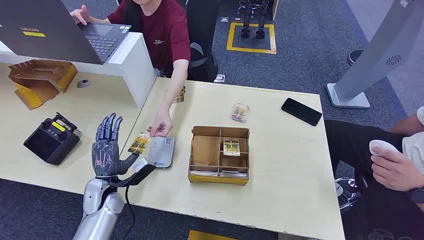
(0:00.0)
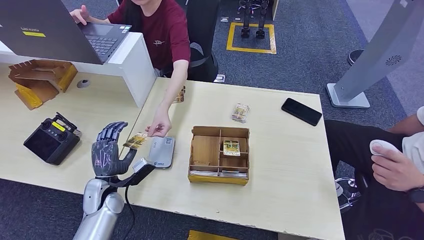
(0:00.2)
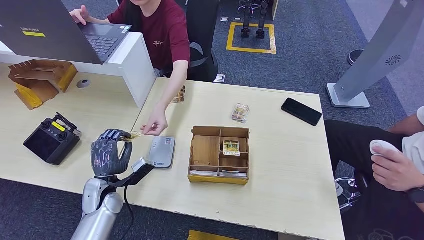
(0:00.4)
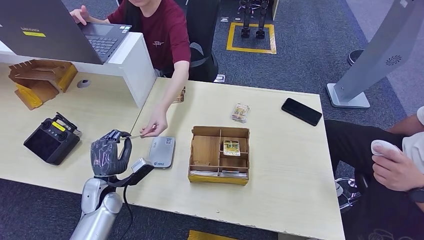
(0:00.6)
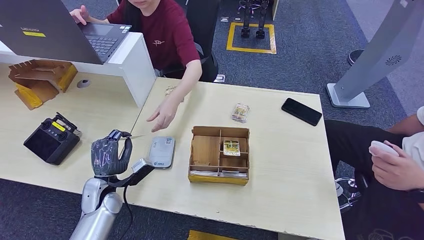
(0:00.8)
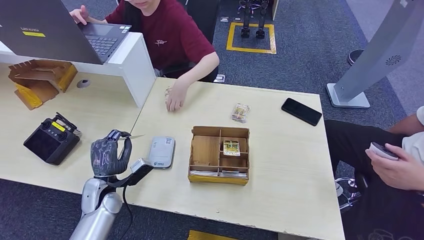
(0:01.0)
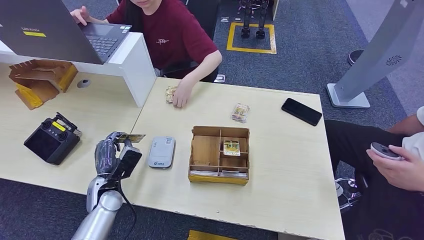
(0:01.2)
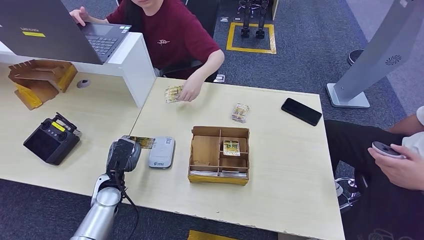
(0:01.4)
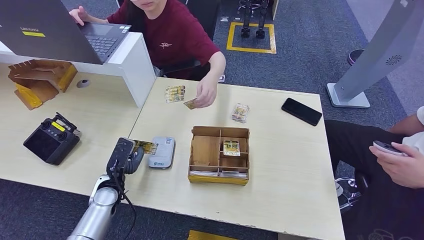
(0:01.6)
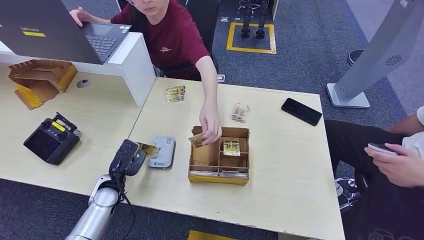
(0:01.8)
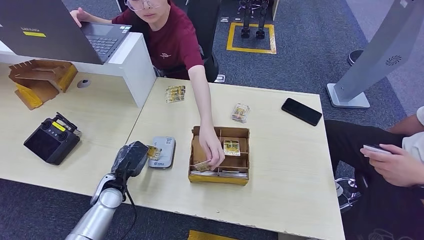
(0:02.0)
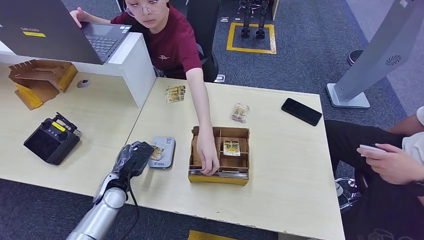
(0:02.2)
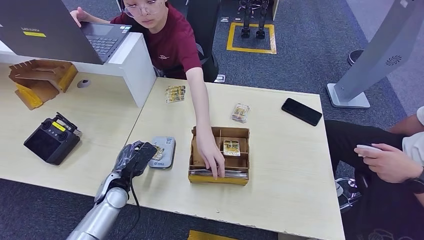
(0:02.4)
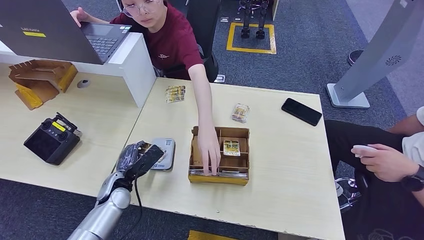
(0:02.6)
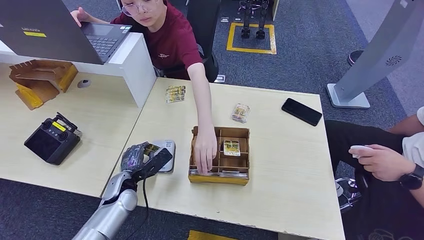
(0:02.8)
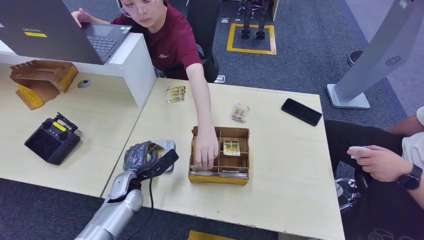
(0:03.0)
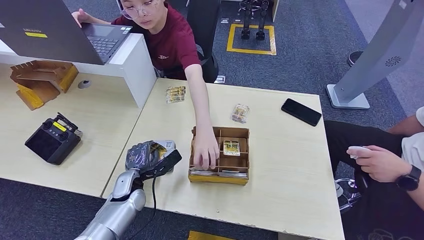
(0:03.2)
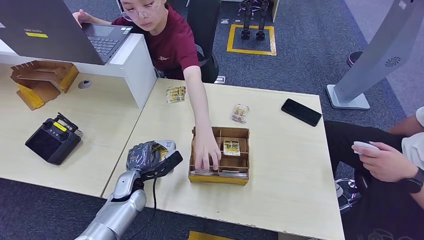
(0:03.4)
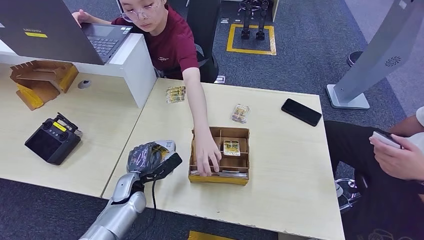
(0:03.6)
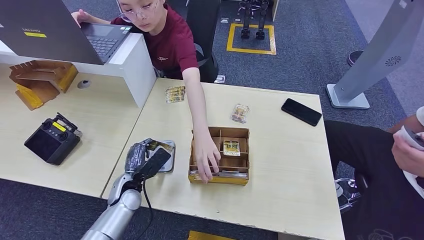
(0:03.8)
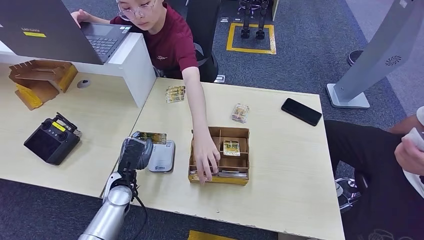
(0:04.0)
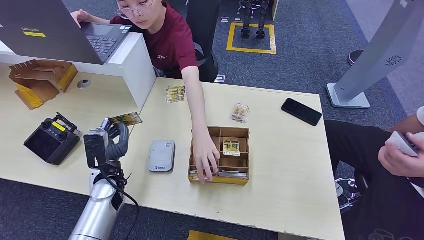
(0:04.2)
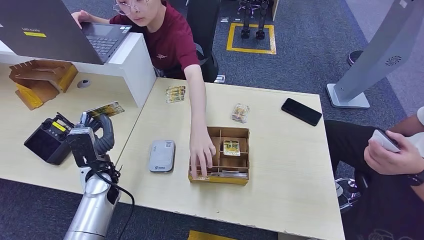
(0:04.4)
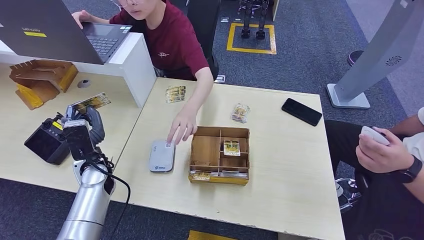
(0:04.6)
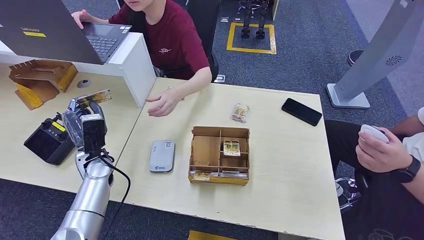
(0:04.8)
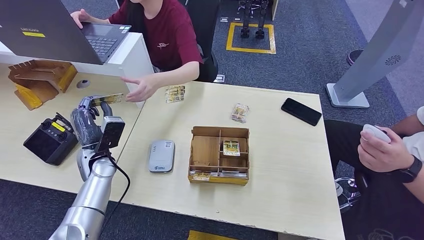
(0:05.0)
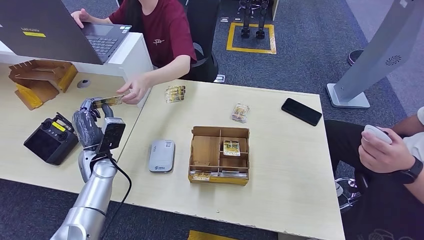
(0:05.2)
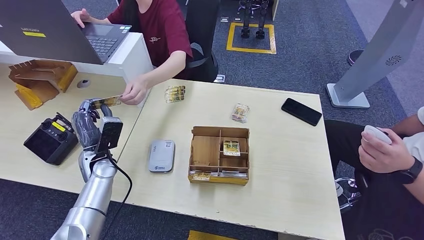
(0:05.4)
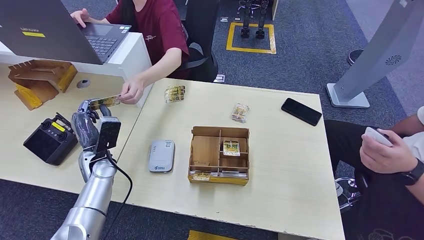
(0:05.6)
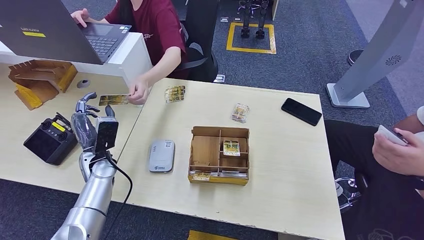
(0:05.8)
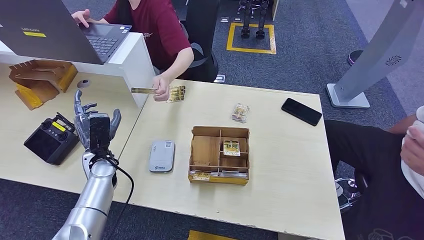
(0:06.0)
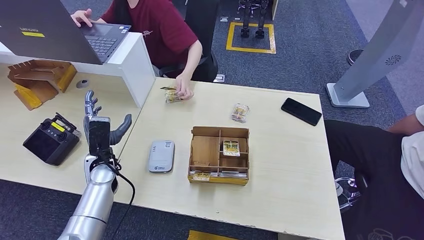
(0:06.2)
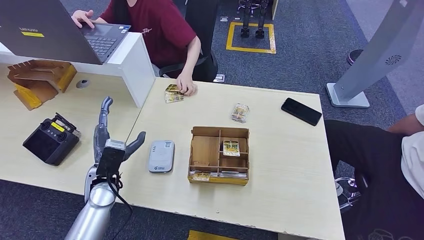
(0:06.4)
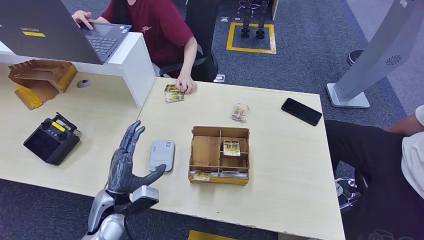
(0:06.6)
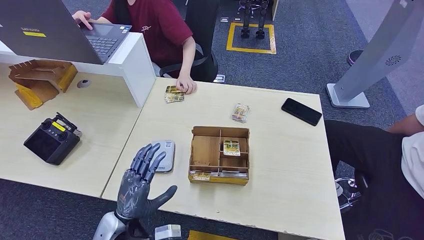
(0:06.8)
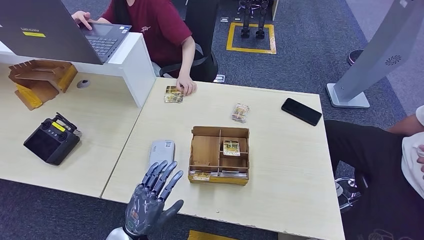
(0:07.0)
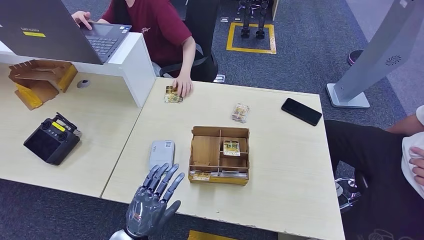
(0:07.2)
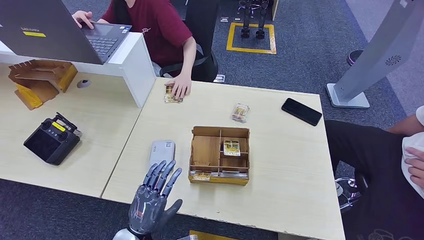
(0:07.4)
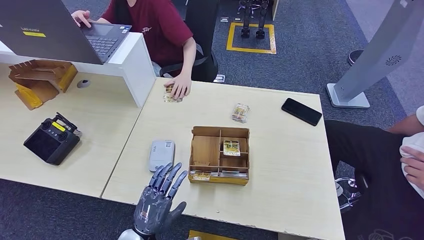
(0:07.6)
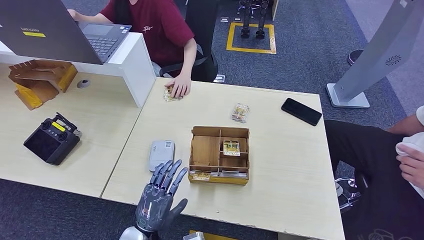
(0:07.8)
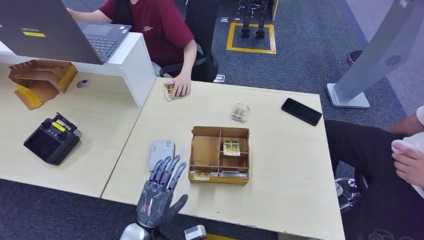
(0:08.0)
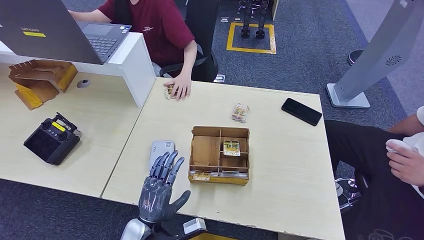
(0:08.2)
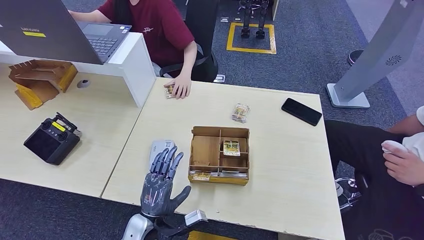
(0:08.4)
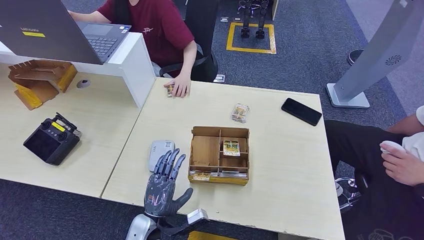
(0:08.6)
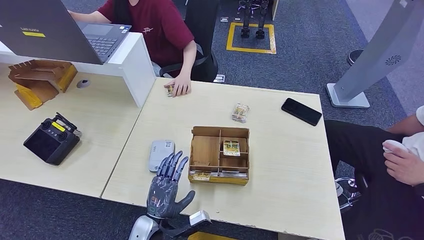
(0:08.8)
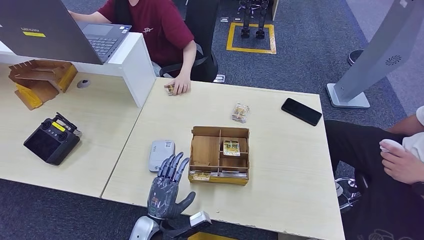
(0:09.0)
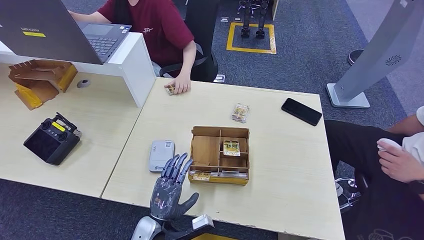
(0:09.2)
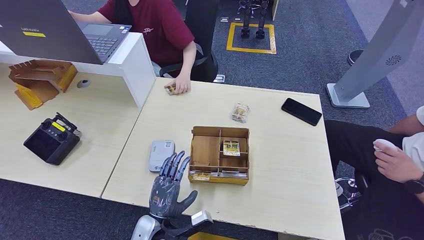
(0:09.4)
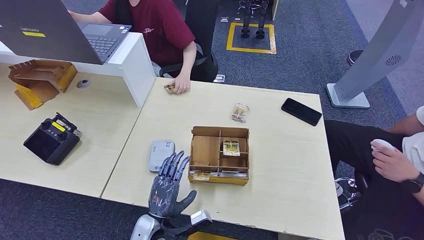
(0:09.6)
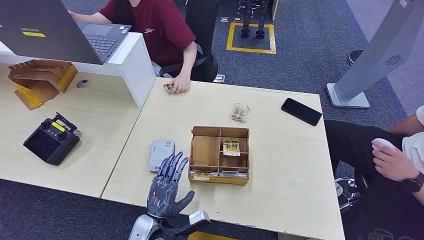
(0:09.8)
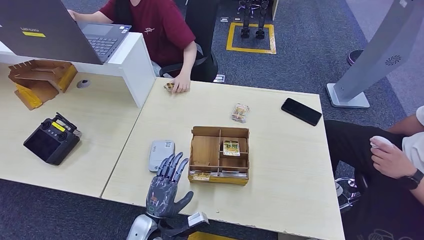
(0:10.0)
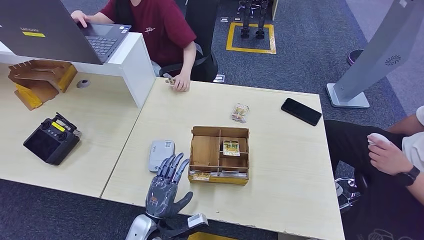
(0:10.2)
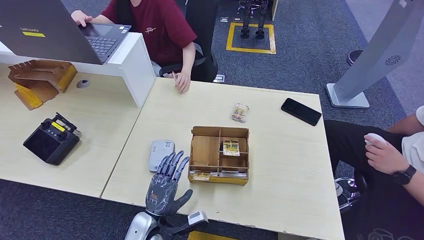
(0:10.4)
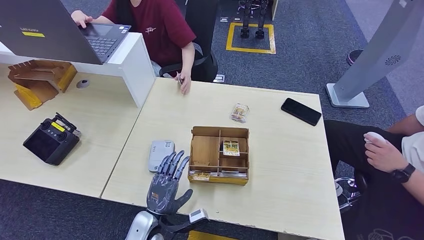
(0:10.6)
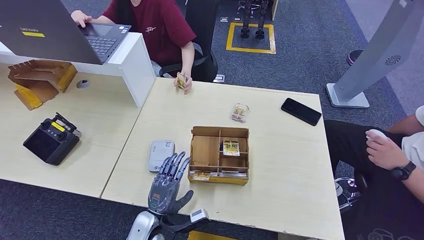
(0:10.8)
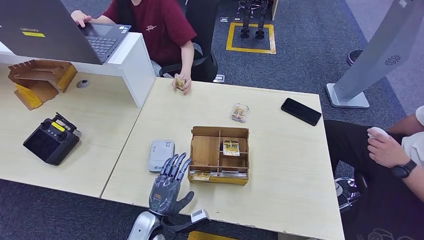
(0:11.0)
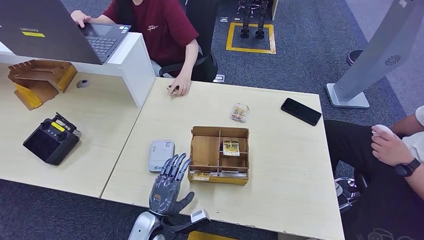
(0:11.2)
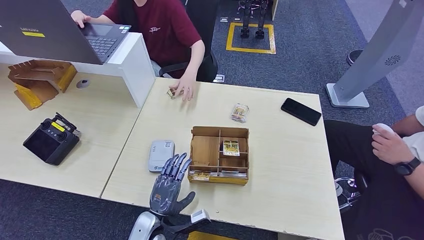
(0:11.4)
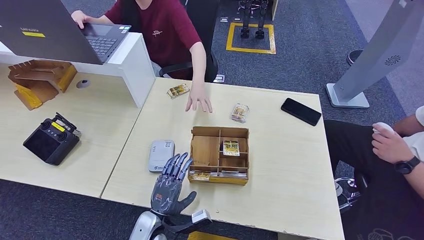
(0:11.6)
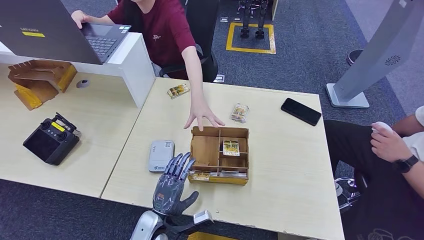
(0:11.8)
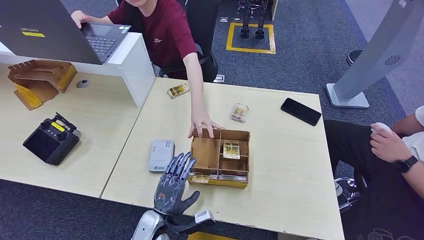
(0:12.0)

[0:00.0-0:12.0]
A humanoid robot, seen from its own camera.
Step, 0:00.0 to 0:00.8: Take the ID card from the person's hand.
Step, 0:01.0 to 0:04.4: Place the ID card on the card reader.
Step, 0:04.6 to 0:06.4: Hand the ID card to the person.
0:01.6 to 0:03.0: The left hand heads to the right, covering about 5 cm.
0:03.0 to 0:04.4: The left hand moves upward, about 10 cm.
0:06.0 to 0:07.6: The left hand travels backward and to the right by roughly 25 cm.
0:07.6 to 0:09.0: The left hand changes place by approximately 5 cm.
0:09.0 to 0:12.0: The hands stay close to where they were, moving slightly.

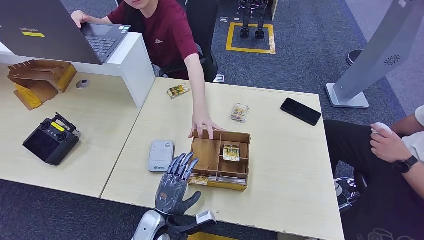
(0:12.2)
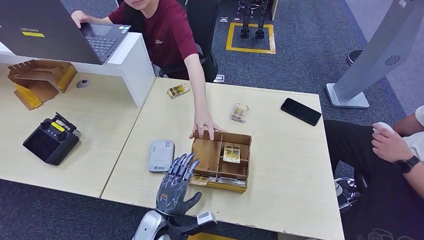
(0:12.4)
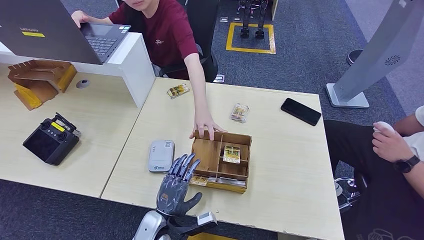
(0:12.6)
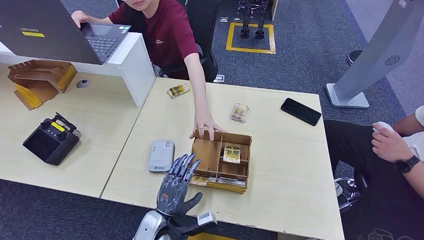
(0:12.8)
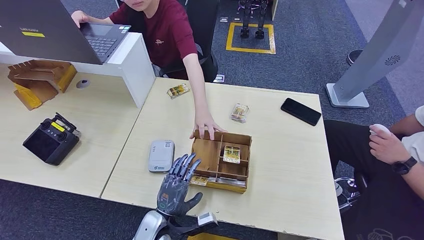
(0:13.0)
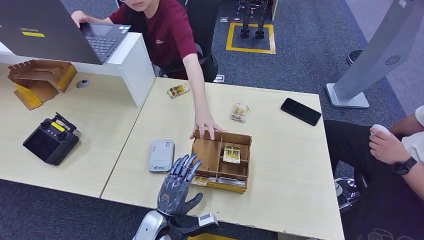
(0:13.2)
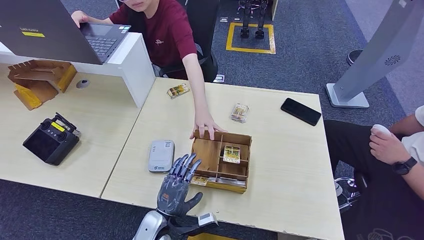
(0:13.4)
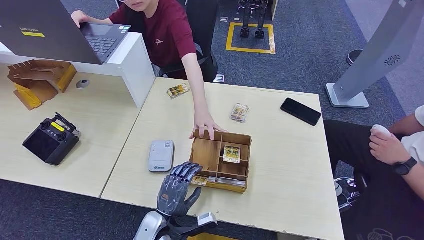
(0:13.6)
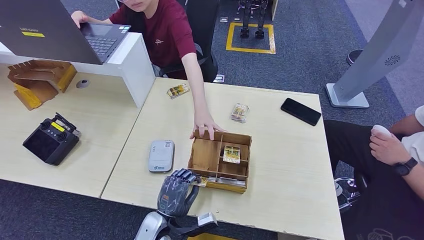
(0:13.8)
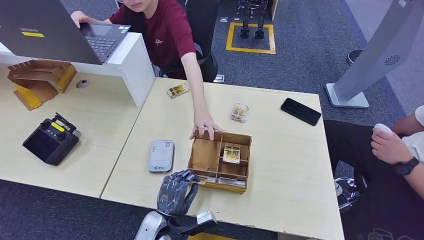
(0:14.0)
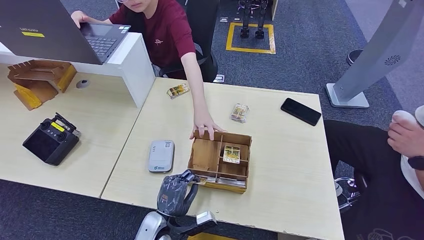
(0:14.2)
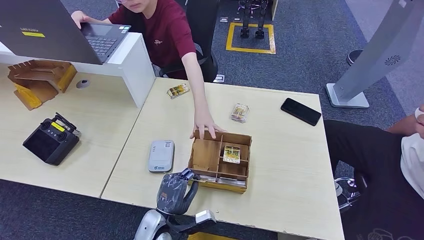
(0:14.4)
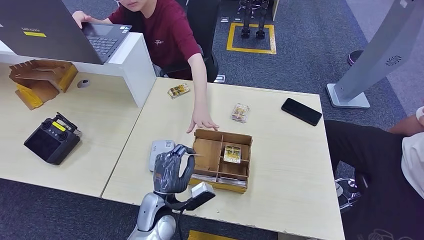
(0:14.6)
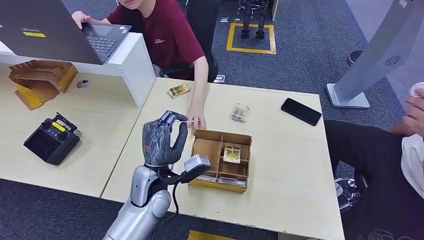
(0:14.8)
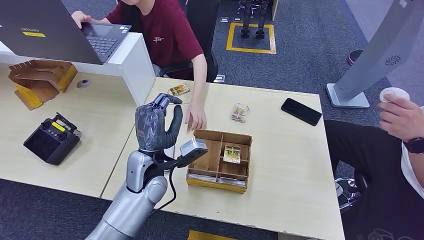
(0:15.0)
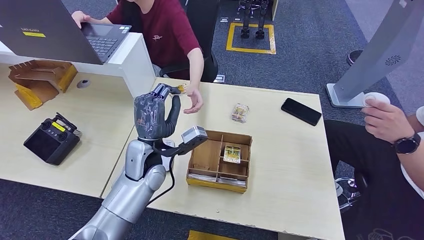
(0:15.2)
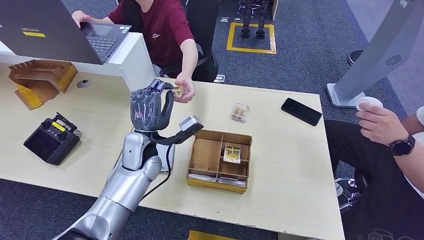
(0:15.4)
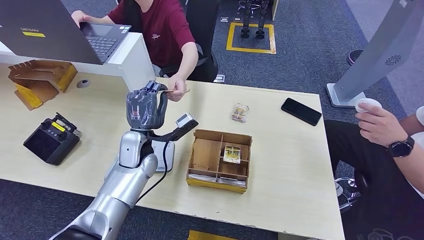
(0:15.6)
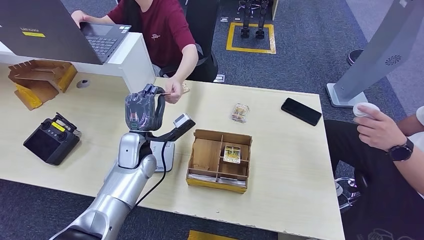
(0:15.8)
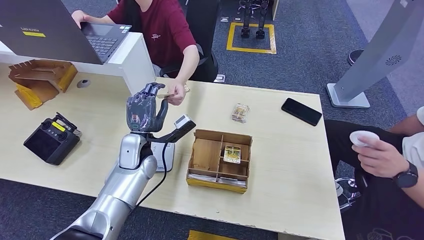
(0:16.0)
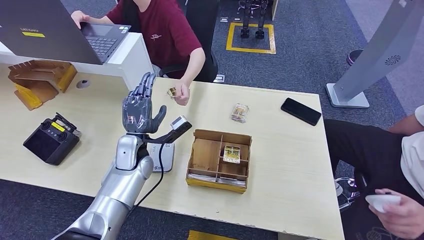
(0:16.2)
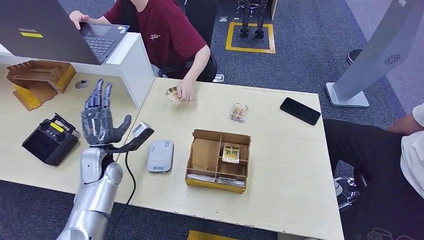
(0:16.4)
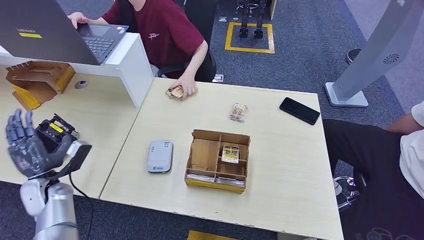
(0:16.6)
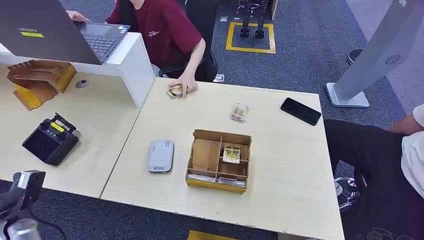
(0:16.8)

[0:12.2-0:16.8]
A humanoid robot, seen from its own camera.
Step, 0:12.2 to 0:14.8: Pick up the room key from the key card box.
Step, 0:15.0 to 0:16.6: Hand the room key to the person.
0:12.2 to 0:13.8: Neither hand changes place.
0:13.8 to 0:15.2: The left hand heads upward and forward, covering approximately 20 cm.
0:15.2 to 0:16.8: The left hand shifts about 35 cm to the left.
